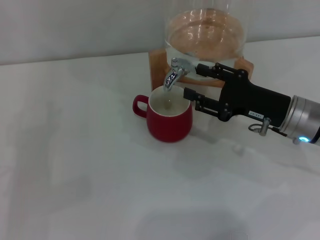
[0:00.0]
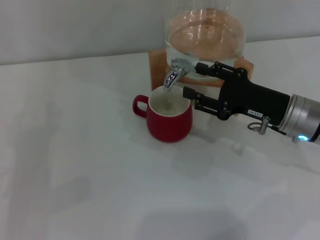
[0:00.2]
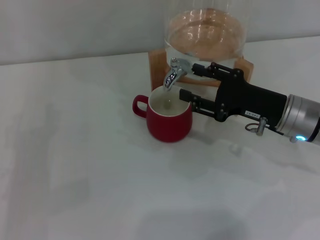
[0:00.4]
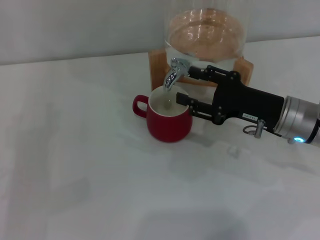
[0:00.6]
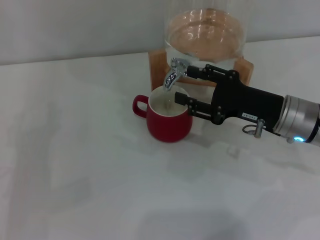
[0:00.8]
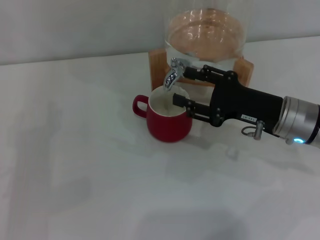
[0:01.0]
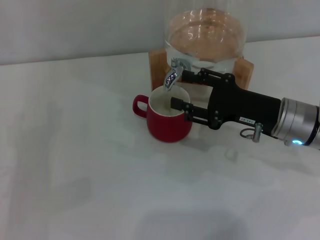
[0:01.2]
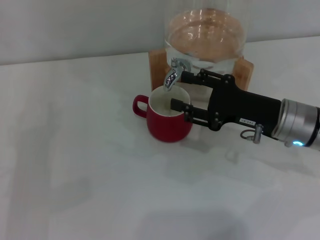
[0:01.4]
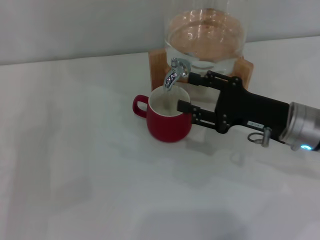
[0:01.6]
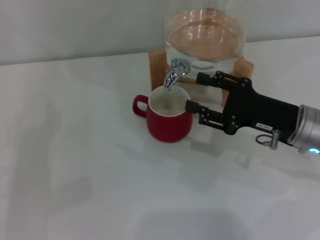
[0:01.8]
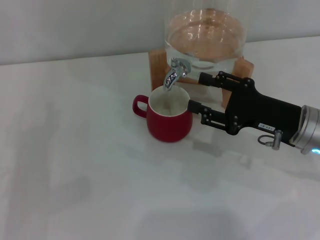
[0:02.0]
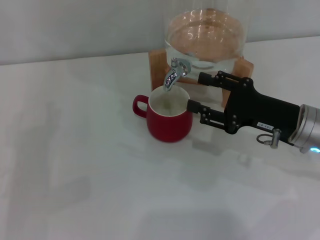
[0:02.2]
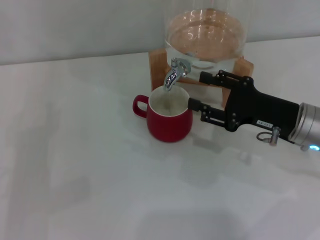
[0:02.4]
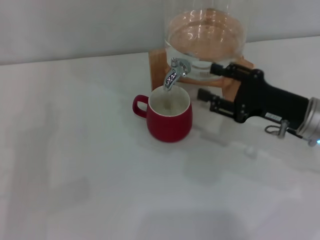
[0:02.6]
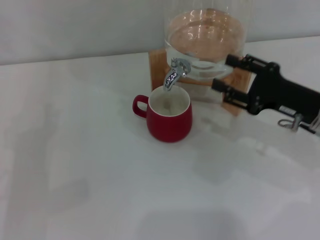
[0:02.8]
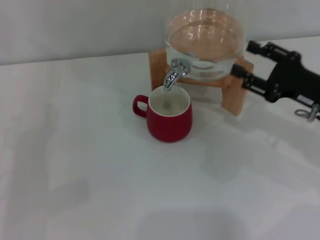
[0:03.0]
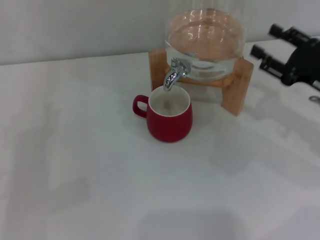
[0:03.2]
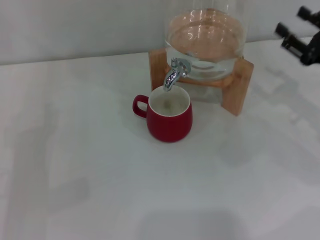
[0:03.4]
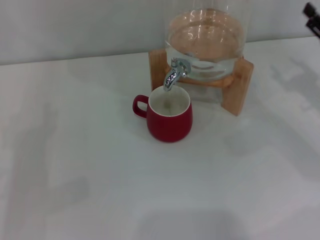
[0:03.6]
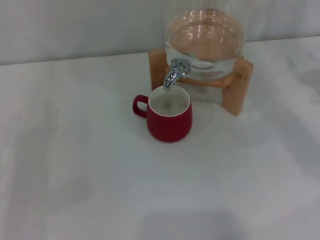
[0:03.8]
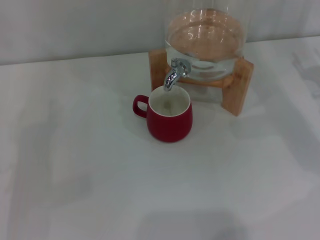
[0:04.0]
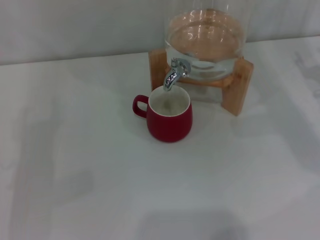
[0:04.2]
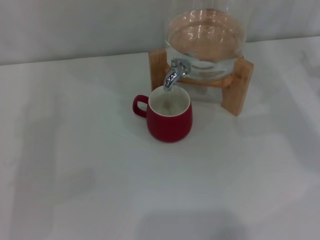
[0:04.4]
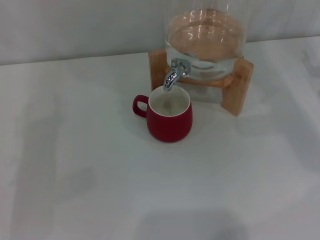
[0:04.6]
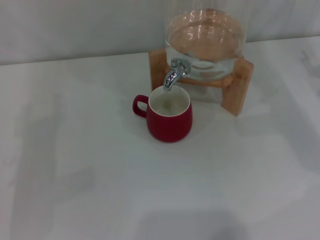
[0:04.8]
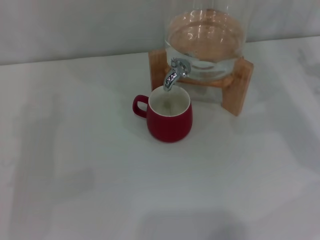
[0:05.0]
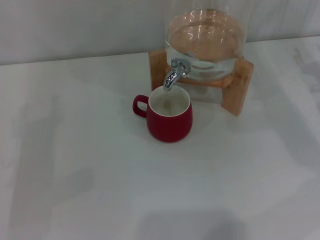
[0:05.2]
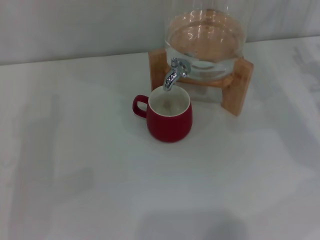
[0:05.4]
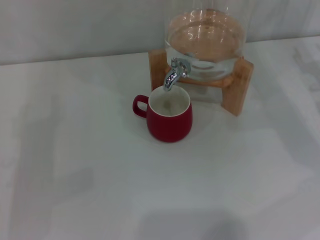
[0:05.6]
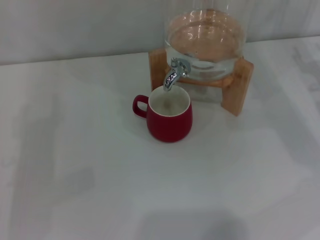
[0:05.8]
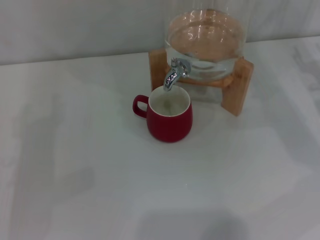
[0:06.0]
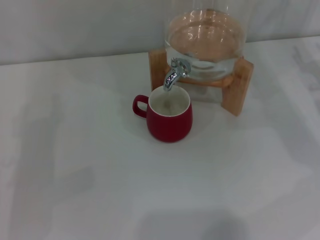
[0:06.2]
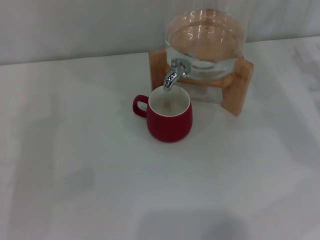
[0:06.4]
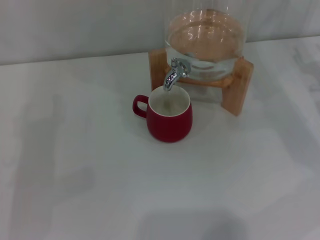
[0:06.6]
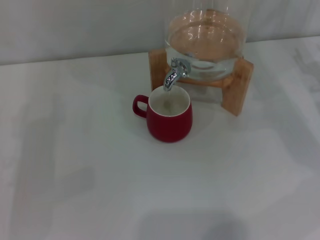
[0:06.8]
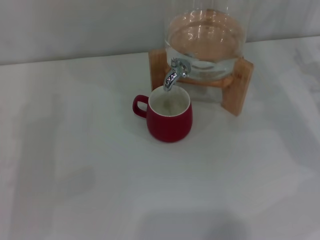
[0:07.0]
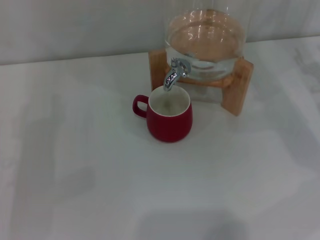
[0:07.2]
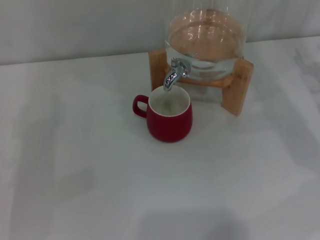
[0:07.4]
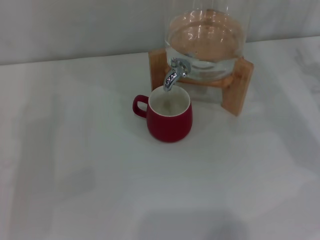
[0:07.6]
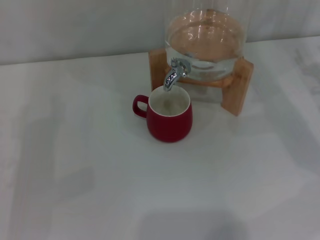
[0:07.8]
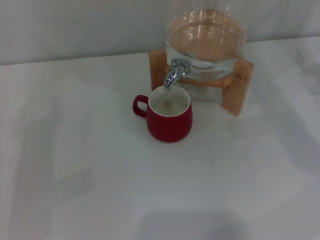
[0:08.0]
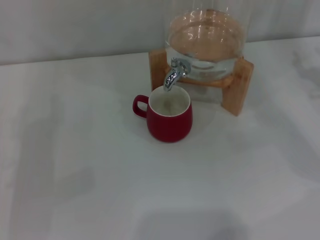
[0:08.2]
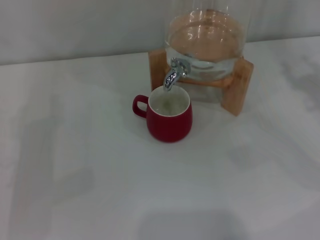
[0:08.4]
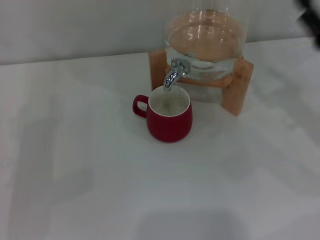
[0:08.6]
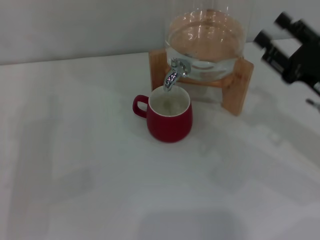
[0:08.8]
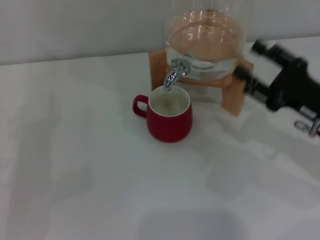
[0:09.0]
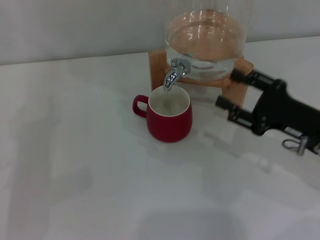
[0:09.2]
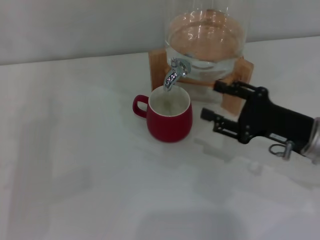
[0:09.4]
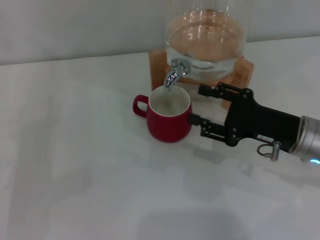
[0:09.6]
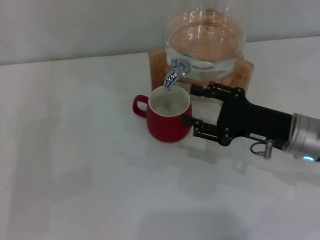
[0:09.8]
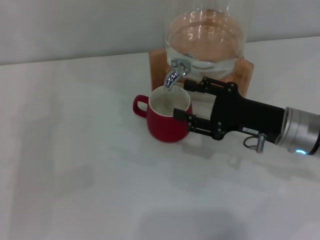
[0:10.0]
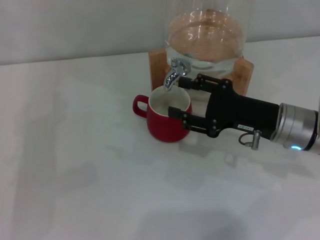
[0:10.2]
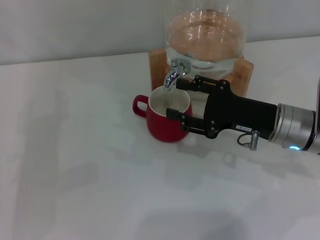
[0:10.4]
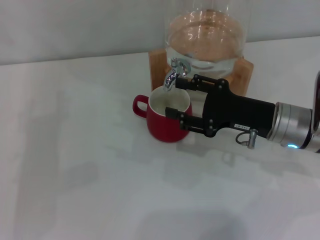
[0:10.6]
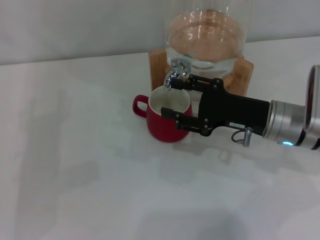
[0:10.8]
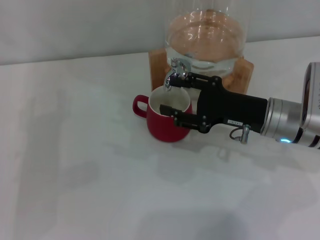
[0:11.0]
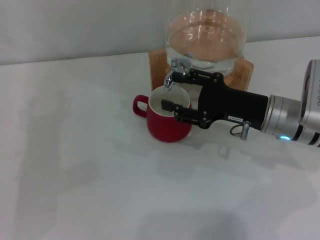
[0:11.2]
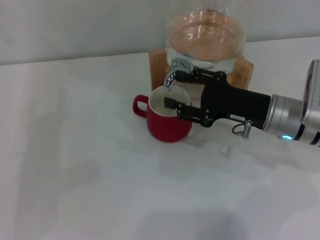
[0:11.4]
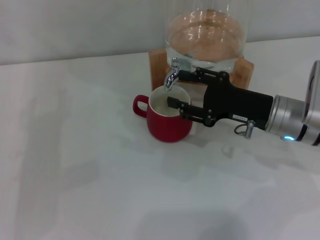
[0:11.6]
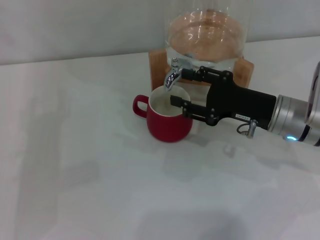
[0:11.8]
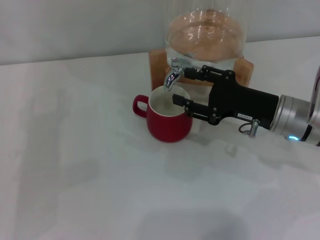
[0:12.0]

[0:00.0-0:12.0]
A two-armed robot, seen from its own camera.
Task of the whole recording: the left gripper pick up the red cup and place it horizontally under the faucet, the right gripper turn on the faucet to fill the cup, and then turn off the faucet.
Step, 0:00.0 to 0:02.0: Open the dispenser valve and fill the cup with water with the right gripper.
0:00.0 to 0:01.6: The grippers stay close to where they were, moving slightly.
0:01.6 to 0:03.0: The right gripper moves to the right, about 5 cm.
0:03.0 to 0:04.4: The right gripper shifts about 10 cm to the right.
0:06.0 to 0:07.6: Neither gripper changes place.
0:07.6 to 0:09.0: The right gripper goes roughly 10 cm to the left and backward.
0:09.0 to 0:10.4: The right gripper is displaced to the left by about 5 cm.
0:10.4 to 0:12.0: The grippers move only a little.

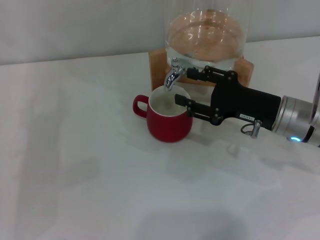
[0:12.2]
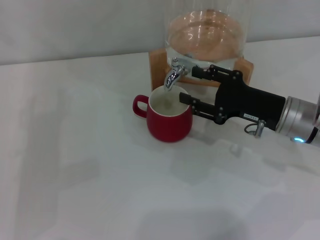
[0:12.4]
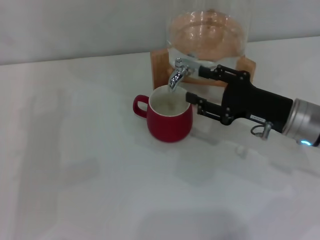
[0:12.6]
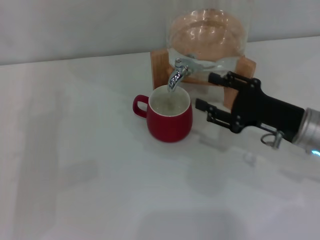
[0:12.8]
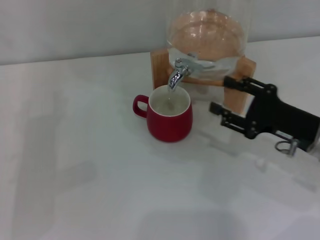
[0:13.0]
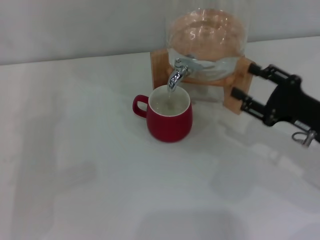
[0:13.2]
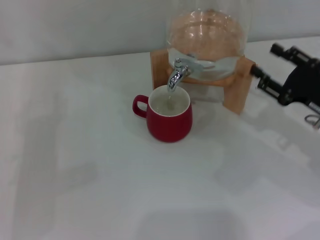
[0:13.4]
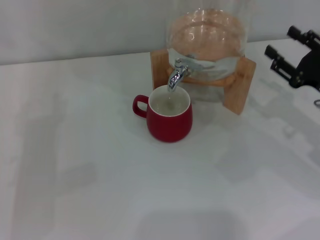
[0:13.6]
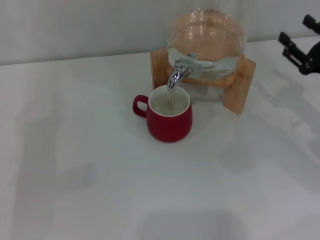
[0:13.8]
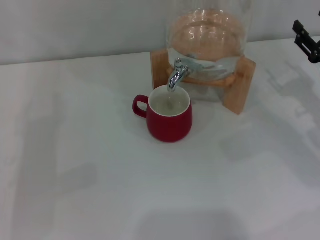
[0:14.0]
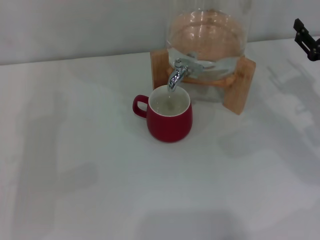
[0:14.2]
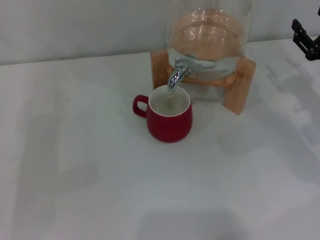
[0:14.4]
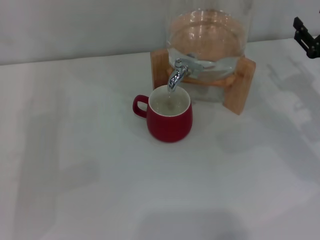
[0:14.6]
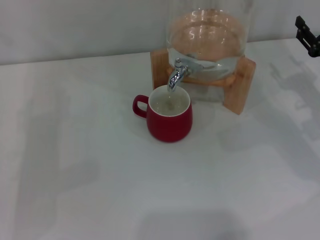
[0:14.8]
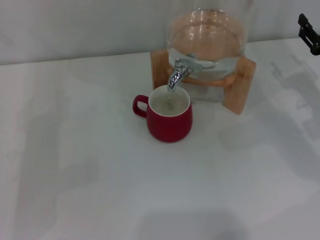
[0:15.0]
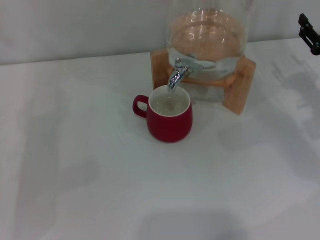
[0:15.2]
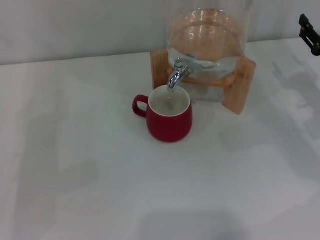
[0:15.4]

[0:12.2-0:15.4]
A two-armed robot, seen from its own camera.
Task of the whole recording: the left gripper pick up the red cup and place it horizontally under the faucet, the right gripper turn on the faucet to fill the cup, and then turn off the faucet.
0:12.2 to 0:13.8: The right gripper heads to the right, covering roughly 10 cm.
0:13.8 to 0:15.4: There are only small adjustments of the grippers.

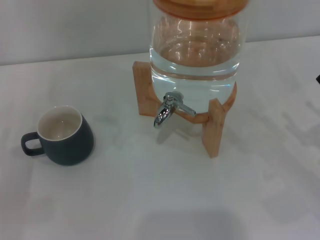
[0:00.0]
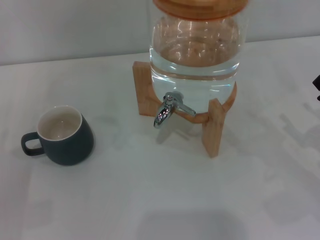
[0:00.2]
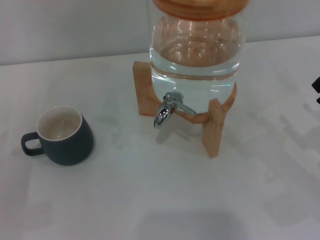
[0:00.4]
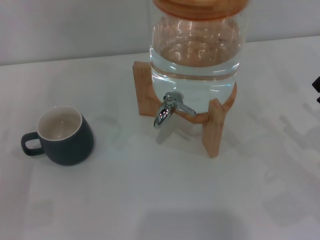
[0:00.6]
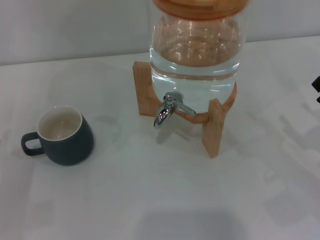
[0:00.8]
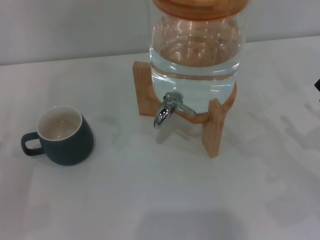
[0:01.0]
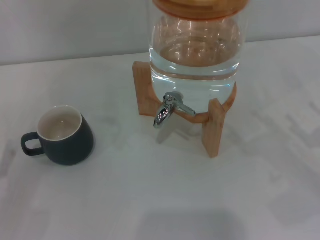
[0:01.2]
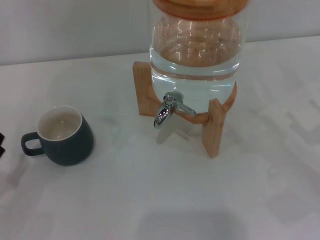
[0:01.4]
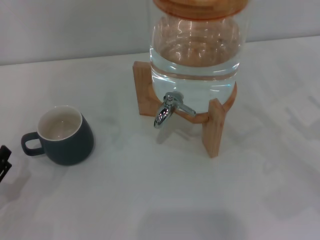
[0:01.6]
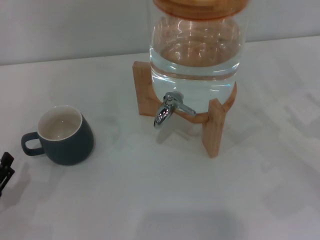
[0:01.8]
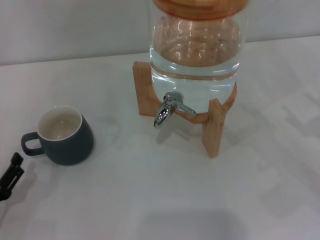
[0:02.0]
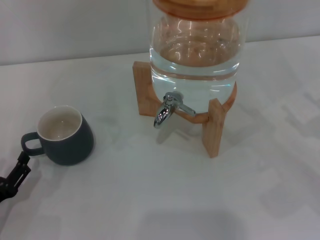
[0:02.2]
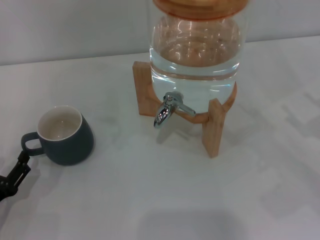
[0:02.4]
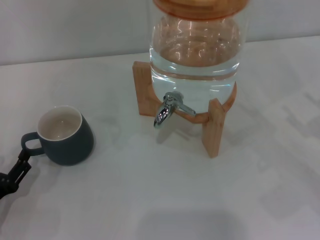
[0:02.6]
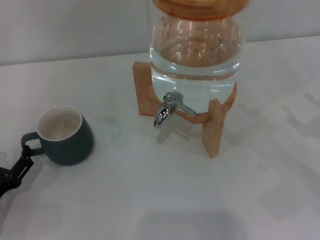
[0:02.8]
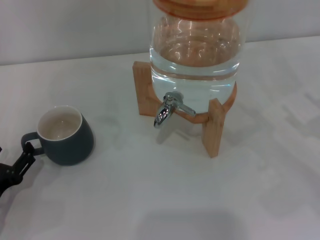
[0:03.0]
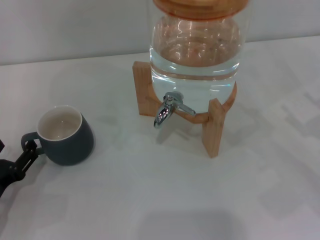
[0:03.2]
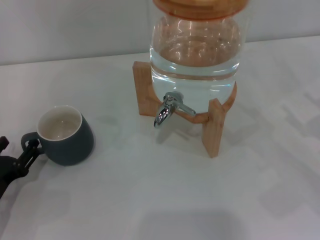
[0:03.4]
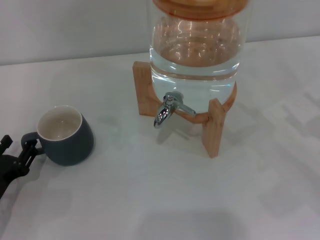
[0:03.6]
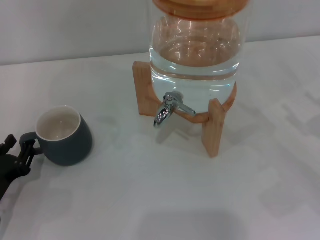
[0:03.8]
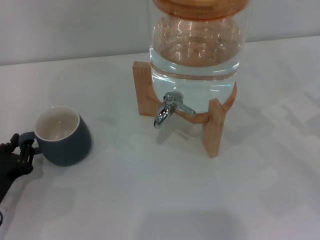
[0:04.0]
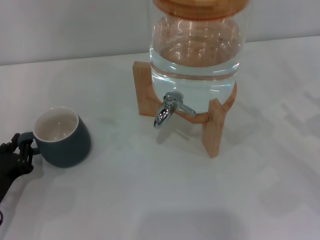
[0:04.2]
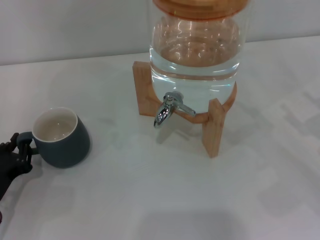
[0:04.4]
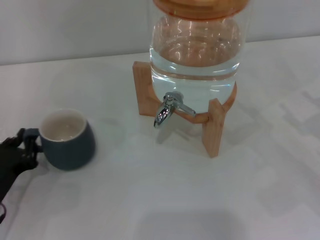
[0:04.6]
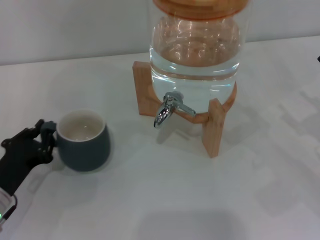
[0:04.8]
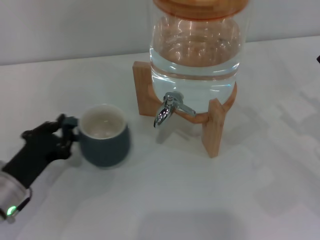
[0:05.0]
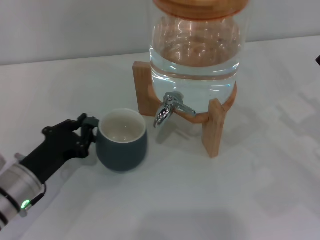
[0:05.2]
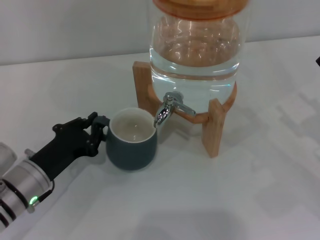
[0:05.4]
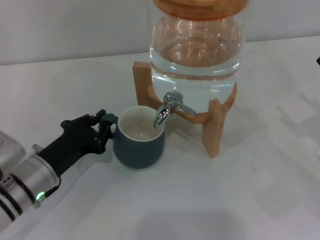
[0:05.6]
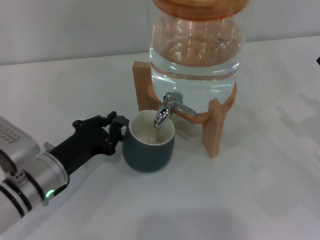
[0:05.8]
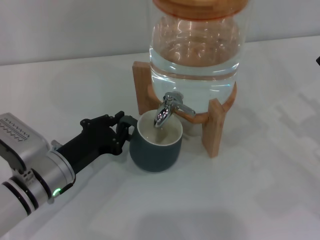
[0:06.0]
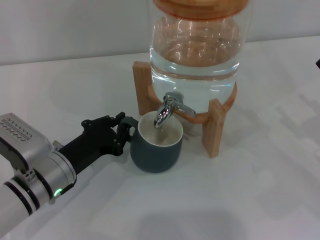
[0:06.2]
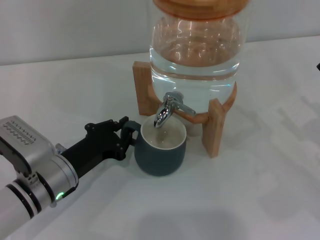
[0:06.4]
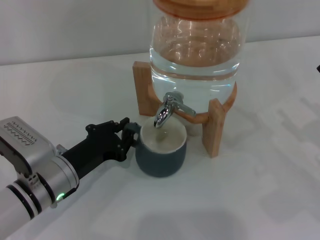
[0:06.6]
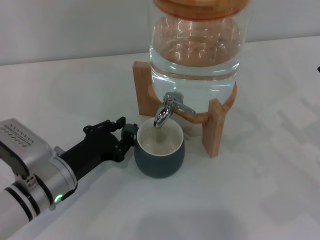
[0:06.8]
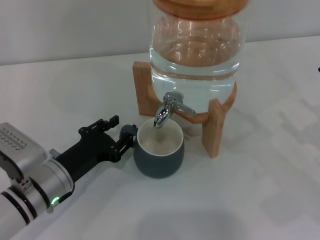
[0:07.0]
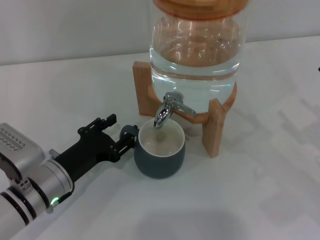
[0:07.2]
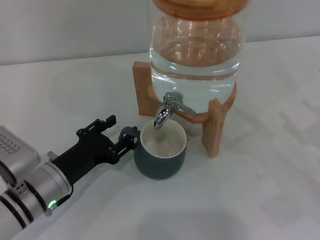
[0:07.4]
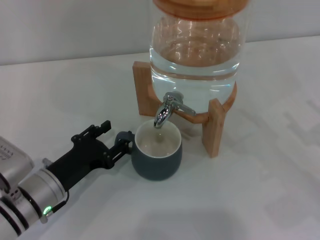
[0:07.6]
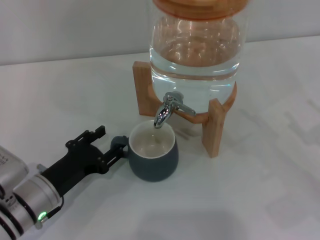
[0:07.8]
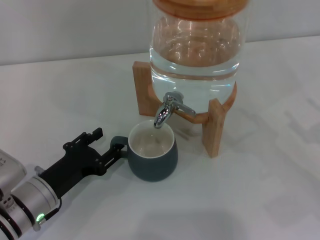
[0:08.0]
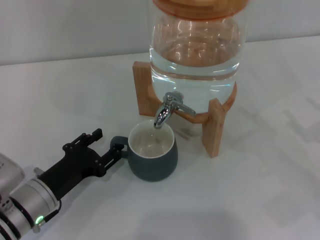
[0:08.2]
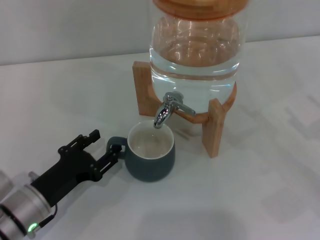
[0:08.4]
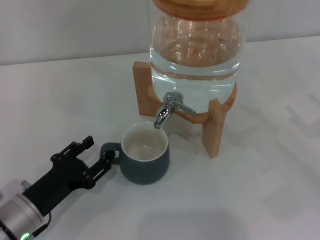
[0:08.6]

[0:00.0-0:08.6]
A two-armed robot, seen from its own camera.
Task of the whole recording: the left gripper pick up the black cup and place it horizontally under the faucet, the right gripper turn on the faucet to fill the cup, and then turn off the faucet.
0:01.4 to 0:02.8: The grippers move only a little.
0:02.8 to 0:04.4: The left gripper closes.
0:04.4 to 0:05.8: The left gripper travels to the right and forward by about 10 cm.
0:05.8 to 0:07.2: The left gripper opens up.
0:07.2 to 0:08.6: The left gripper changes place by roughly 5 cm.
